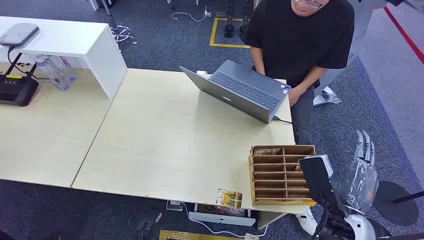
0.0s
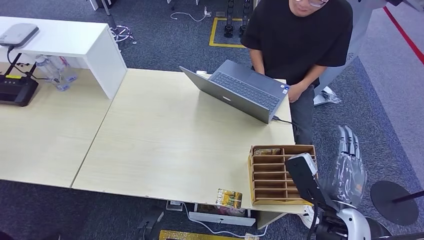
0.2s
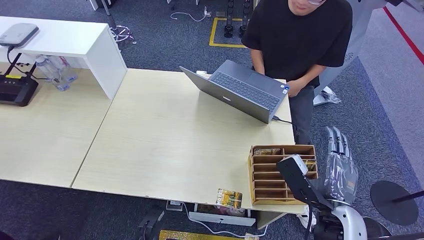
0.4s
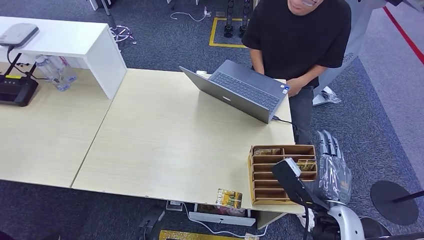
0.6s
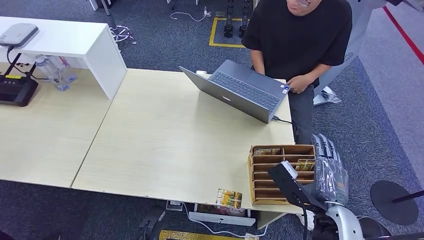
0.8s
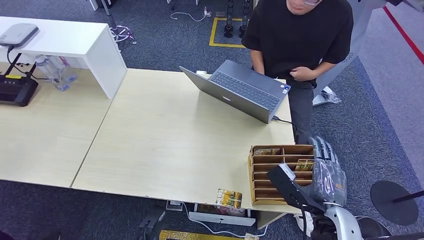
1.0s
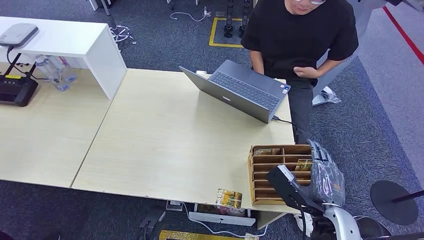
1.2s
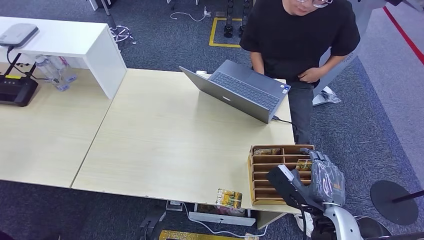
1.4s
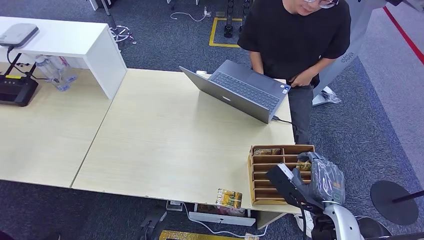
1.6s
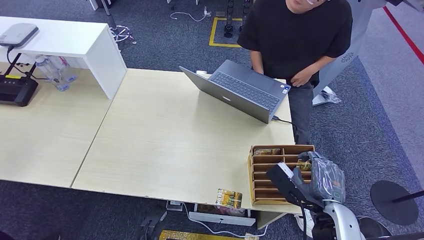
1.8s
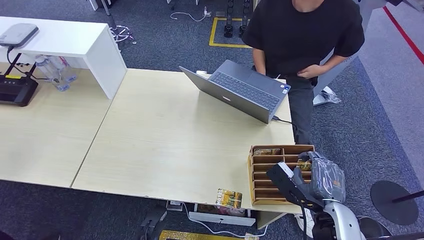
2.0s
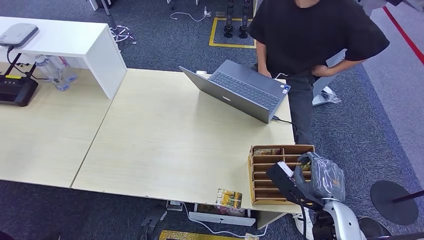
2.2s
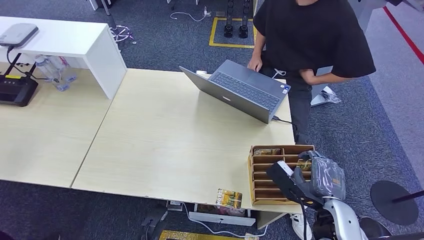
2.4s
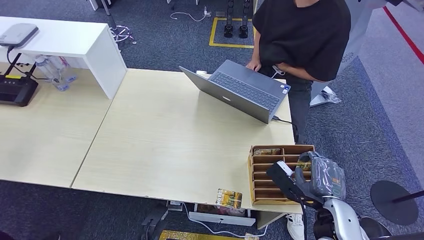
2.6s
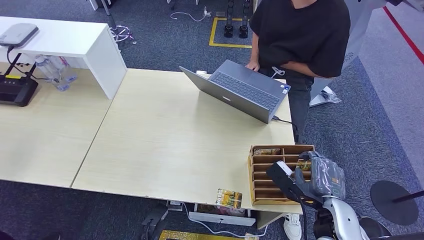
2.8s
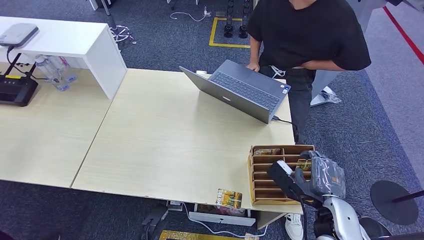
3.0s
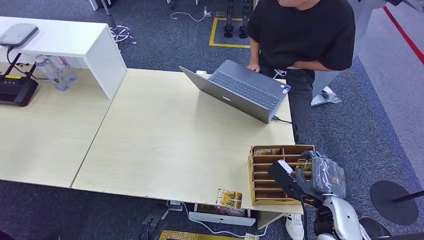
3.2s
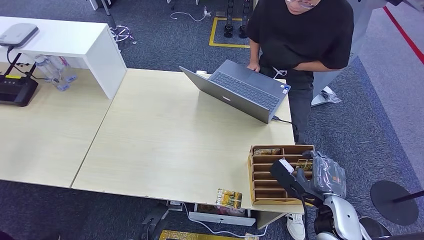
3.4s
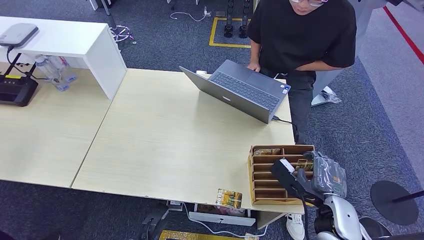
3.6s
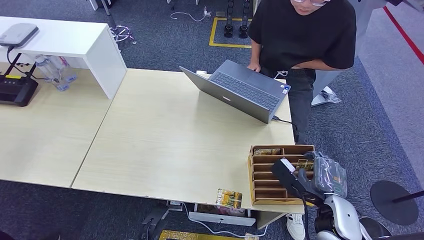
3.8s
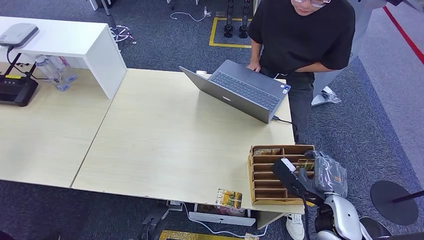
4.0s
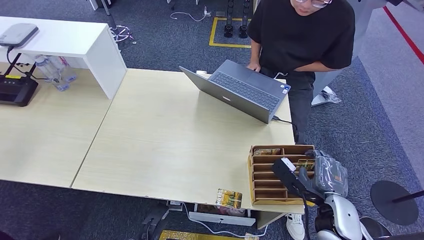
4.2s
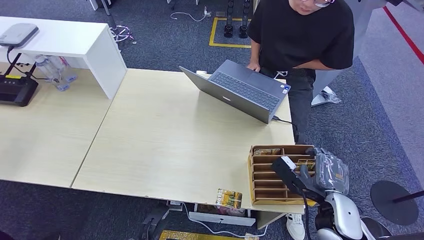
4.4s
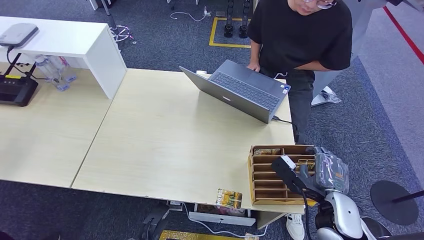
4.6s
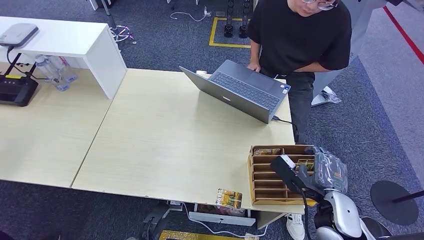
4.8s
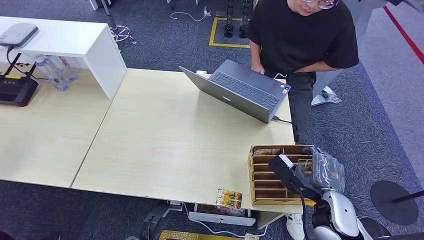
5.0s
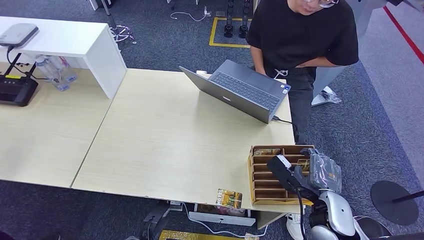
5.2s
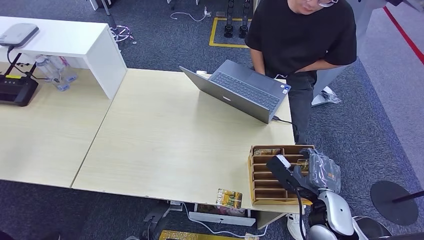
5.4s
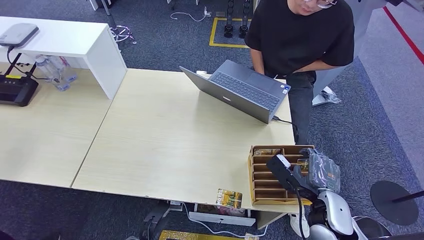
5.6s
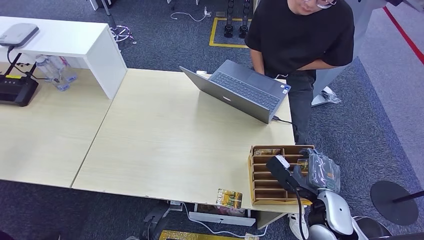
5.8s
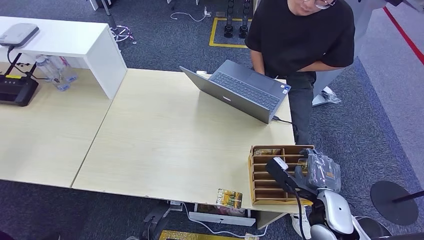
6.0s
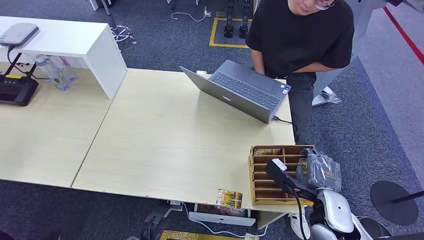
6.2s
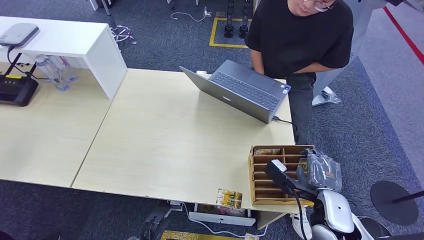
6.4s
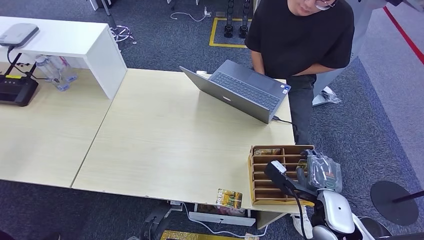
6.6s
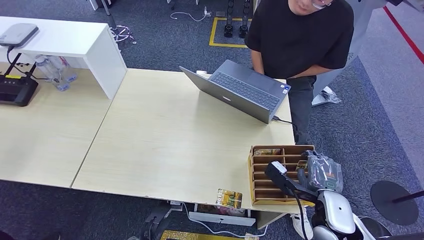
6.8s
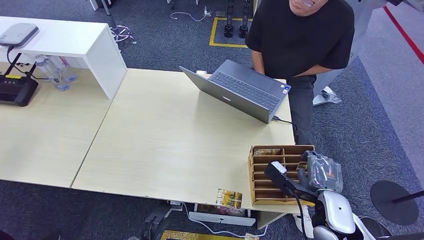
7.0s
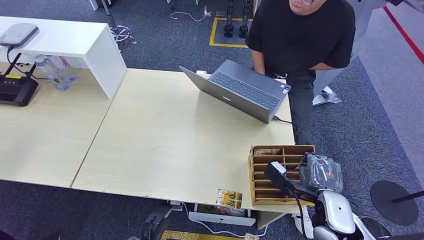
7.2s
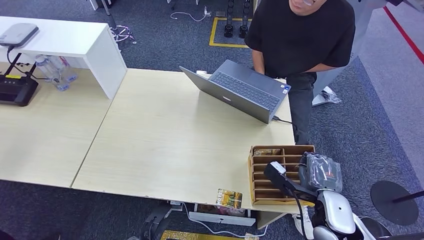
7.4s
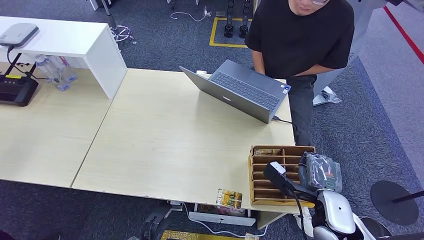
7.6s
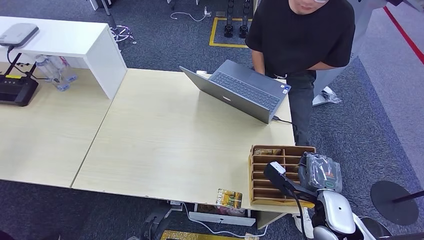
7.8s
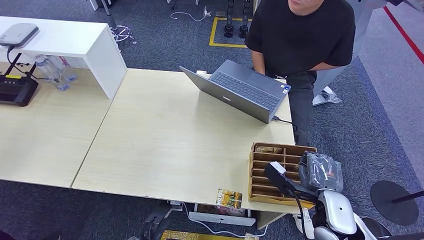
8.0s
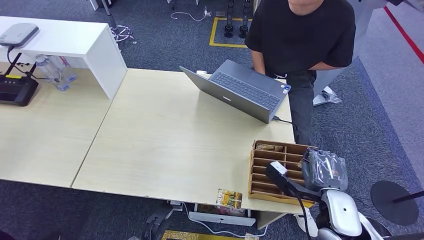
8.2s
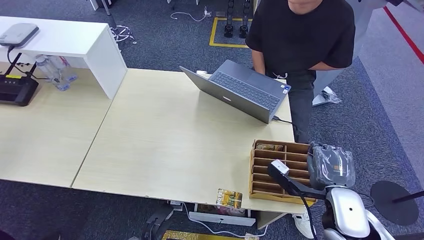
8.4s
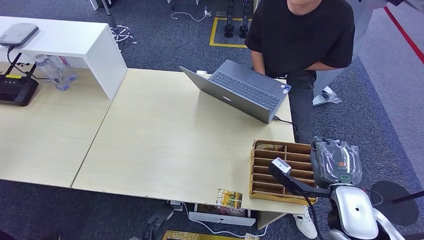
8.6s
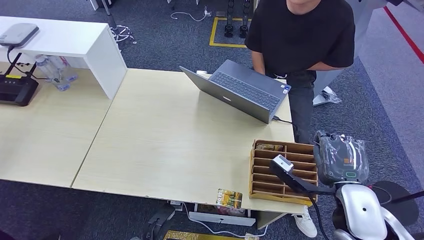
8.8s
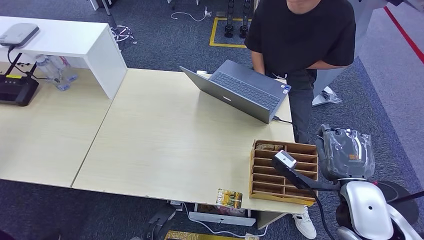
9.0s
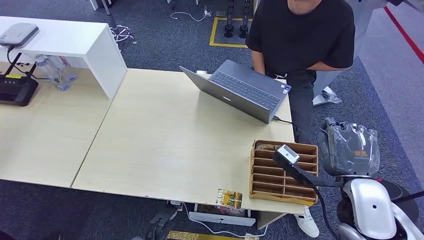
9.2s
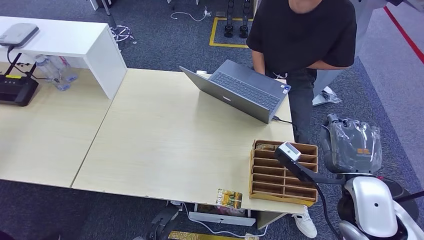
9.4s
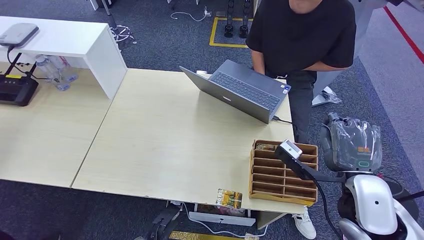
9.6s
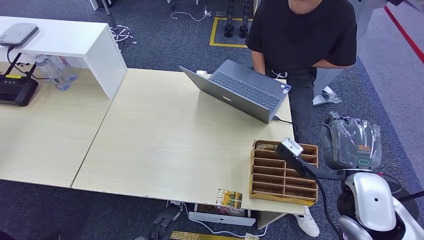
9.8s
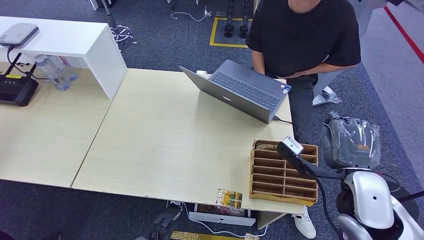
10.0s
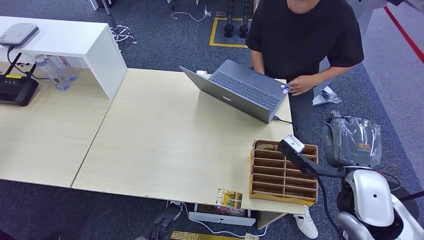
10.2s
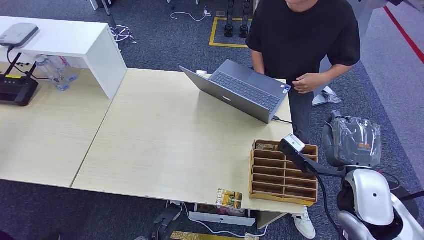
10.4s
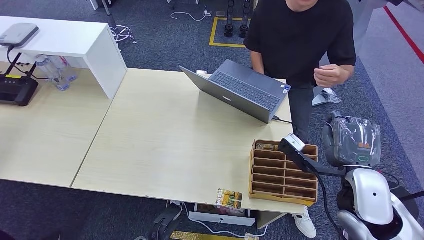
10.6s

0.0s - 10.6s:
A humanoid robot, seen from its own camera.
Step, 0.0s - 8.8s: Pick up the room card from the card holder.
Step, 9.2s - 10.6s: Hand the room card to the target.
1.6s - 7.6s: The hands move only a little.
7.6s - 9.0s: The right hand heads upward, covering about 10 cm.
9.0s - 10.6s: The hands move only a little.
